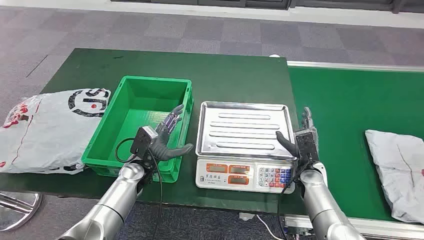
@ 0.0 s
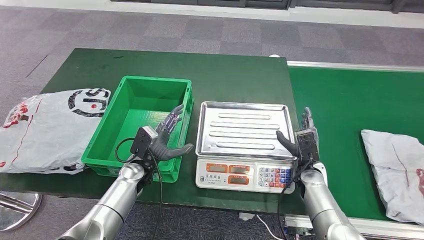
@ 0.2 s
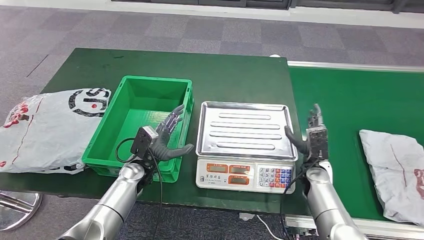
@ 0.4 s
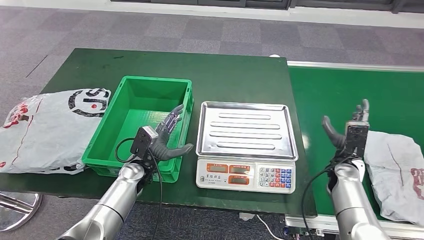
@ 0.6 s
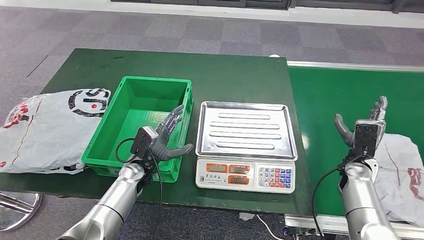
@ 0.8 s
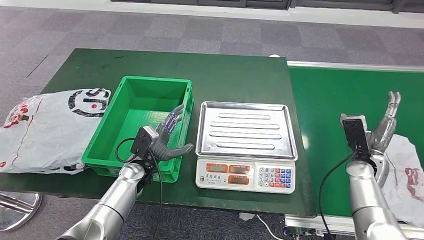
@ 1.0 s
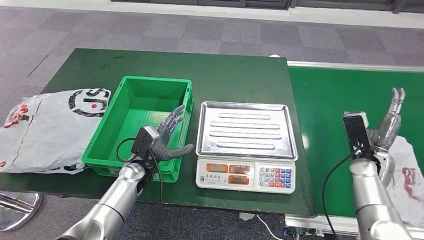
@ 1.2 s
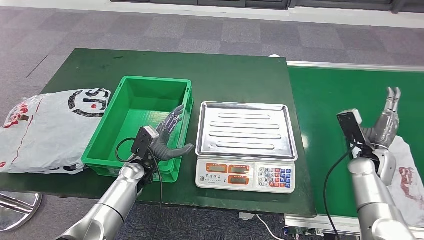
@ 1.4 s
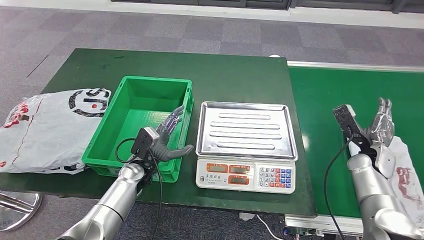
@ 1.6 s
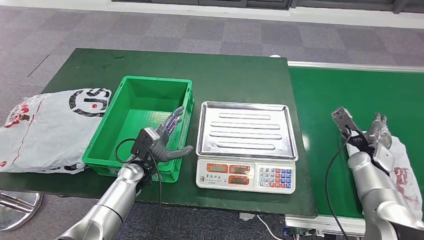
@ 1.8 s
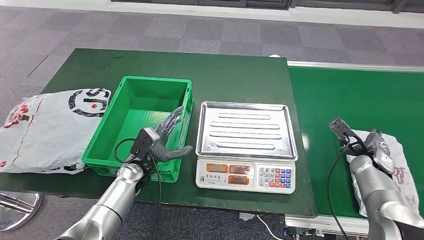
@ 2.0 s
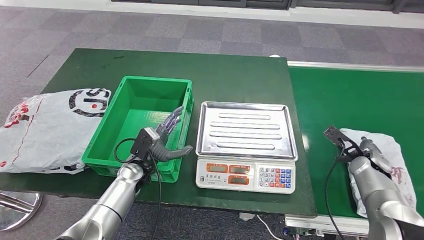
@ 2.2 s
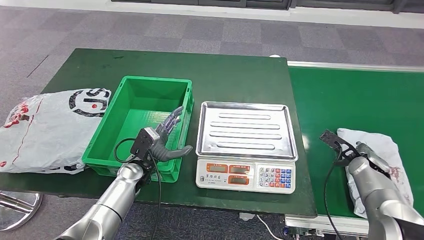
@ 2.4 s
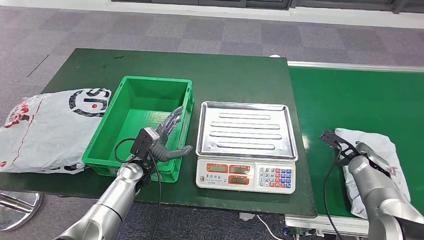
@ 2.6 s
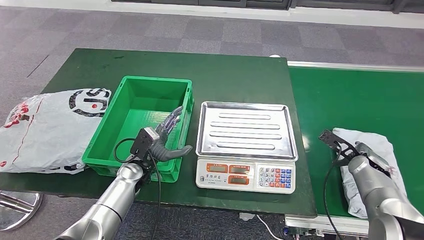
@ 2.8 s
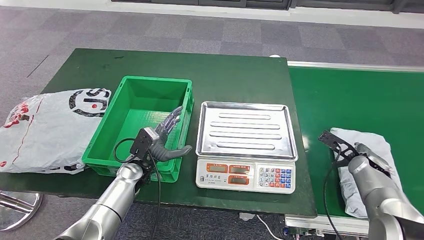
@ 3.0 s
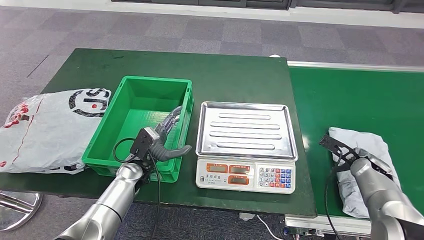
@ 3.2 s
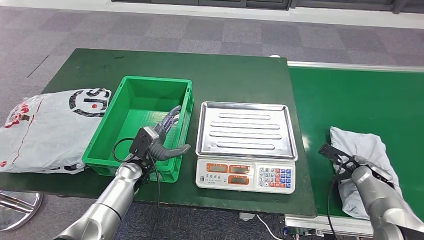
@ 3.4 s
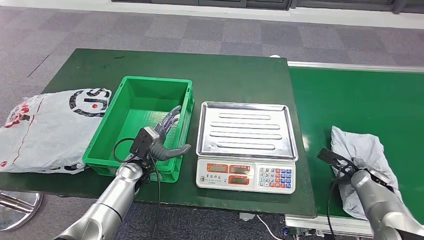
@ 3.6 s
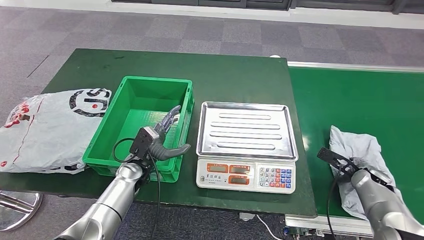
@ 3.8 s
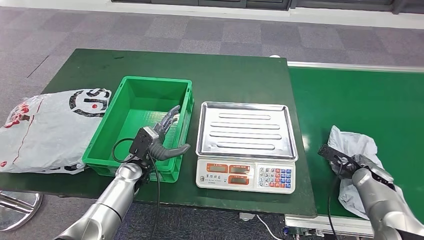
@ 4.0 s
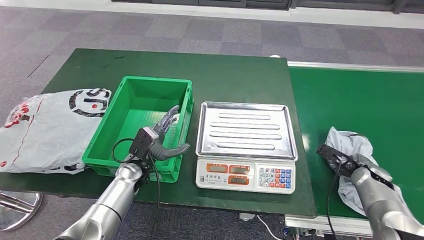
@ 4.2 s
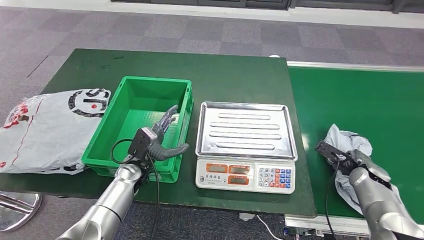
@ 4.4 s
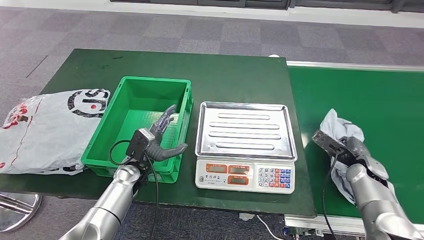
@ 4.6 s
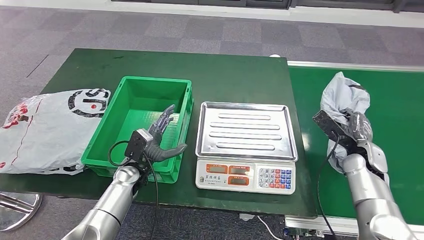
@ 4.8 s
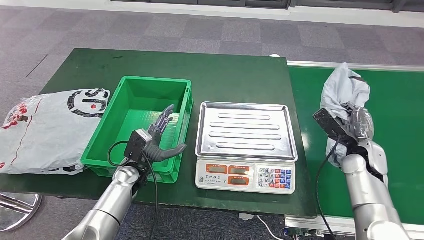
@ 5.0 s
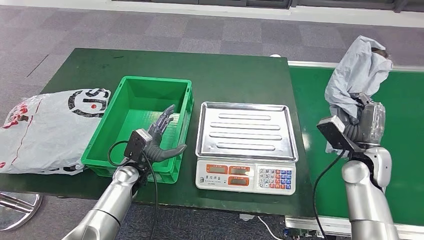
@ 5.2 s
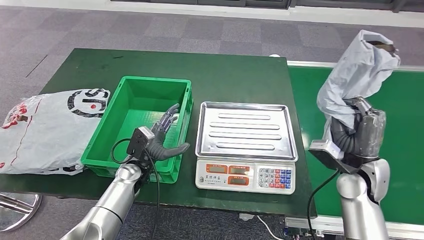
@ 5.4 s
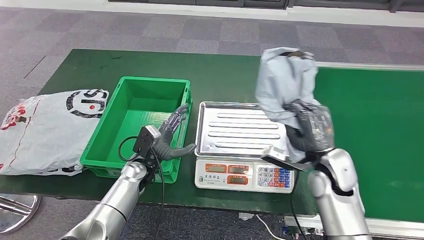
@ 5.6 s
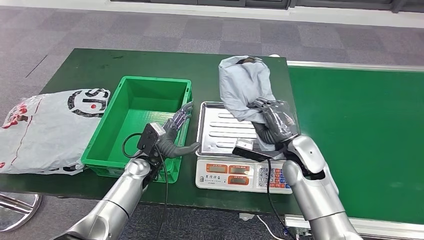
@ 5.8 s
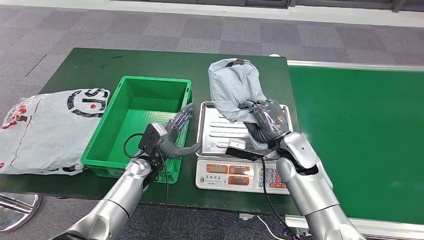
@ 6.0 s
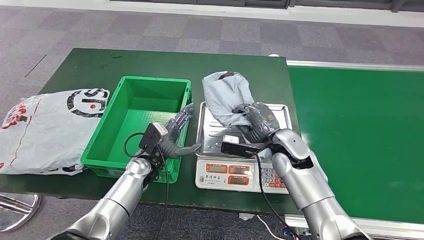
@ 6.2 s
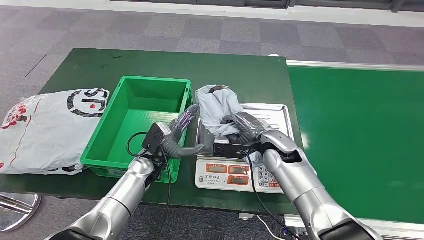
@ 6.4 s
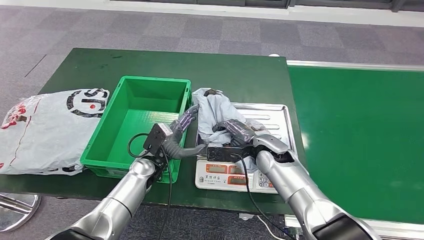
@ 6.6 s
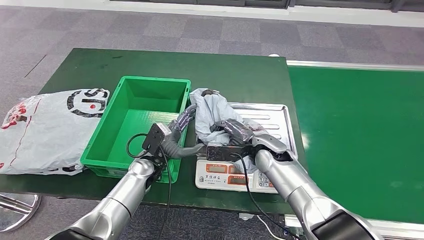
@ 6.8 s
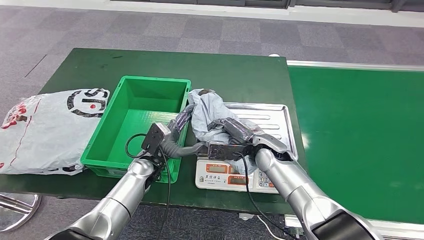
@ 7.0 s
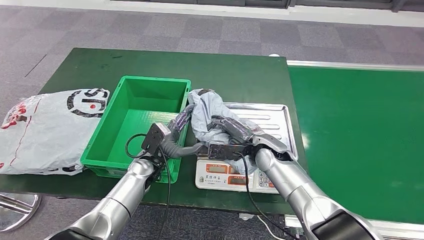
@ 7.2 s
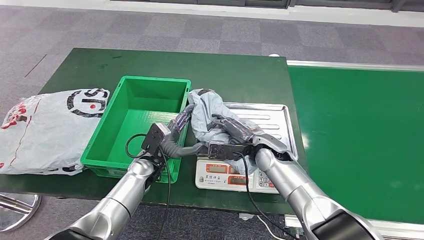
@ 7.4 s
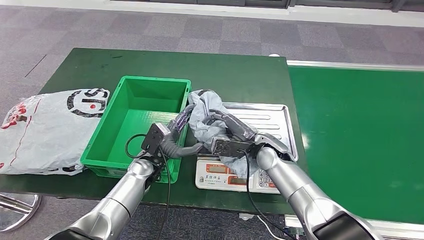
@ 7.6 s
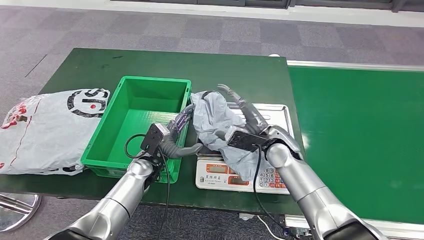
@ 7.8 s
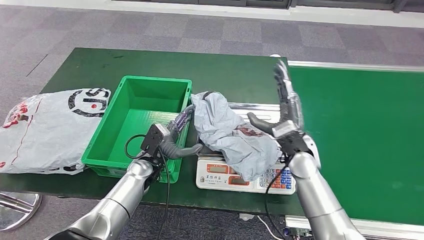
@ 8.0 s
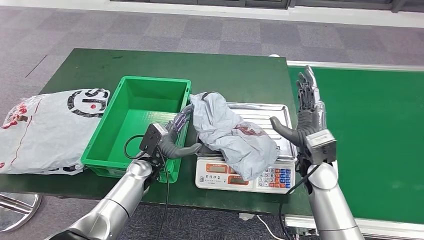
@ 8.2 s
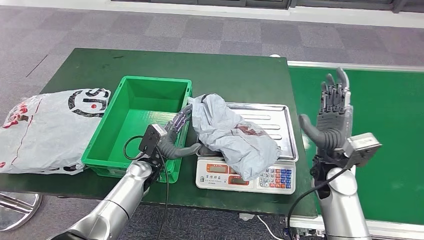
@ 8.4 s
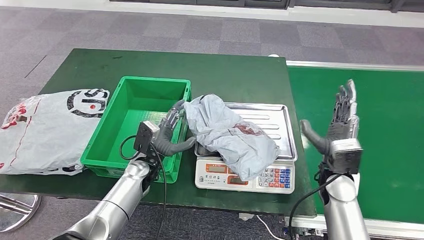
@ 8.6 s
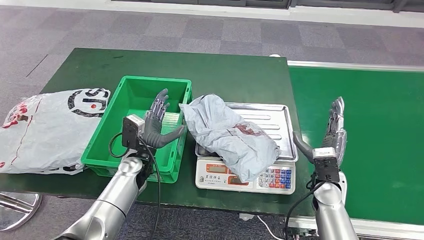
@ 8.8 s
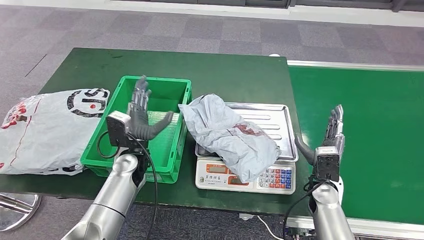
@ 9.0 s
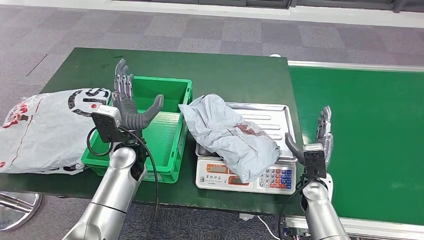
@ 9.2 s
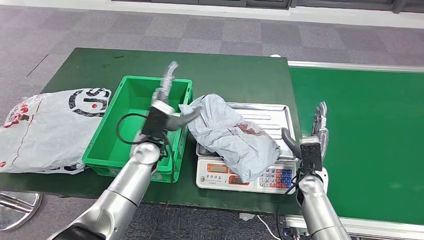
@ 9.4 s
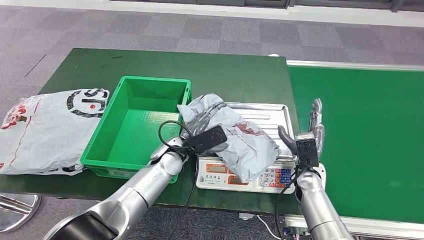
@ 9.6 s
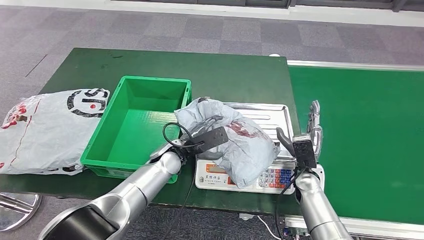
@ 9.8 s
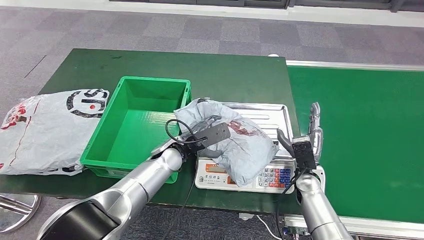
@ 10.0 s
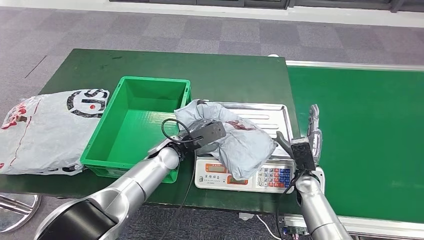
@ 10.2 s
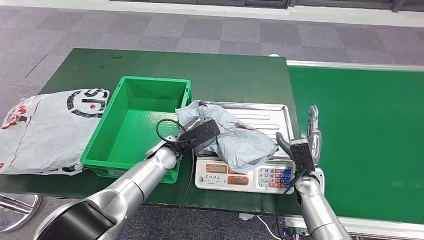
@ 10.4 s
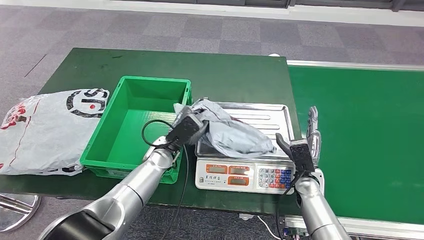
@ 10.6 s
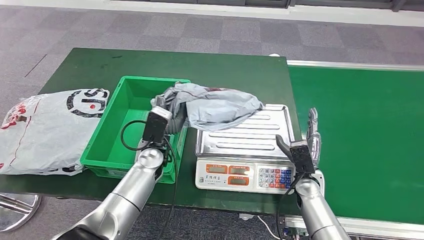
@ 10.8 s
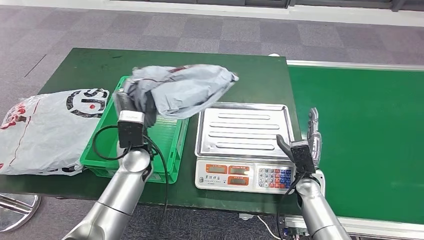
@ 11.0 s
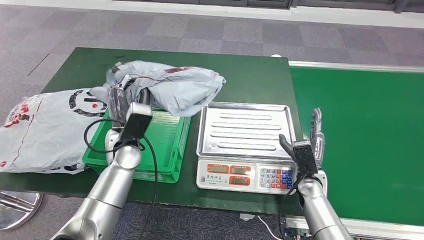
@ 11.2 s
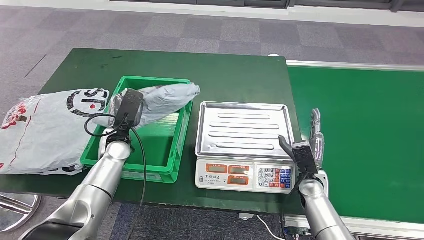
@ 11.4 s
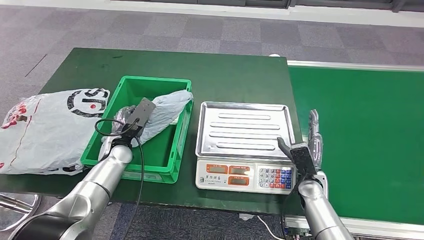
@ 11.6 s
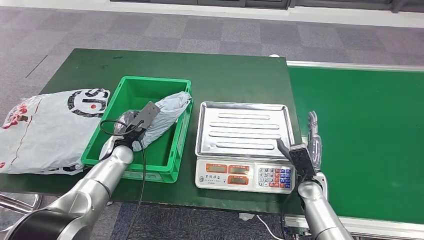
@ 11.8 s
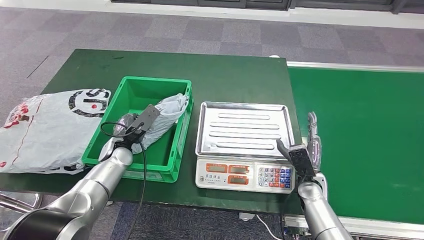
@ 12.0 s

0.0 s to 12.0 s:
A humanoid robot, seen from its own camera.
Step, 0.0 to 5.4 s: Take the parcel off the conveyor belt.
Step, 5.6 to 8.8 s: Place the parcel onto the inbound machine.
Step, 9.0 to 10.8 s: Pick up the parcel from the inbound machine.
3.0 to 4.4 s: The hands make only small movements.
6.0 to 7.6 s: The right hand goes about 5 cm to the left.
7.6 to 9.0 s: The right hand moves to the right and backward, roughly 15 cm.
9.0 to 10.4 s: The left hand is displaced to the right by some 10 cm.

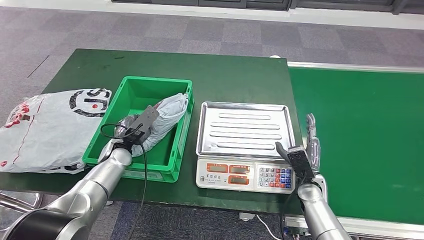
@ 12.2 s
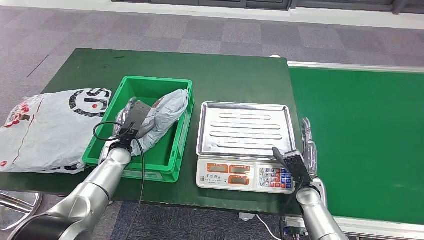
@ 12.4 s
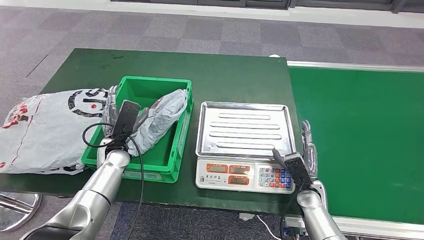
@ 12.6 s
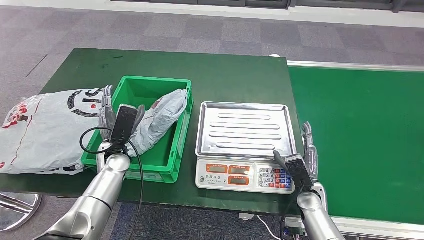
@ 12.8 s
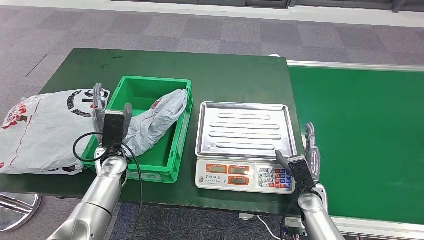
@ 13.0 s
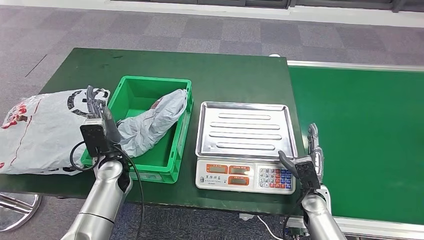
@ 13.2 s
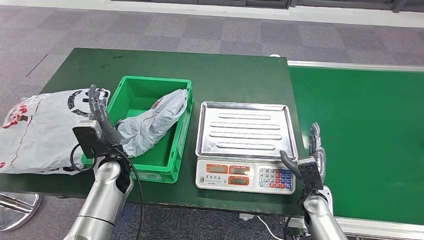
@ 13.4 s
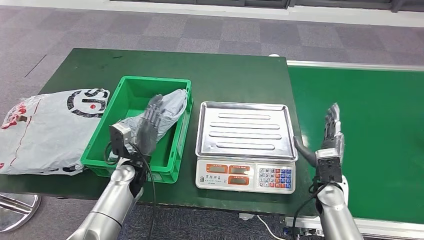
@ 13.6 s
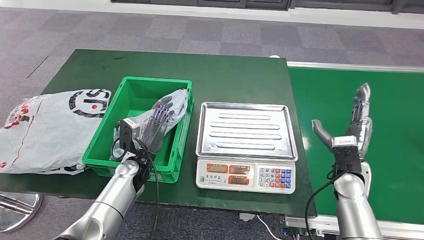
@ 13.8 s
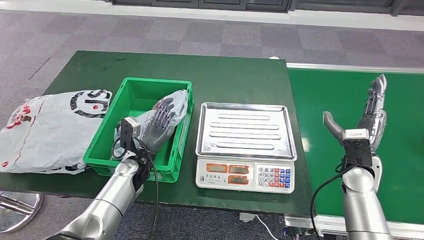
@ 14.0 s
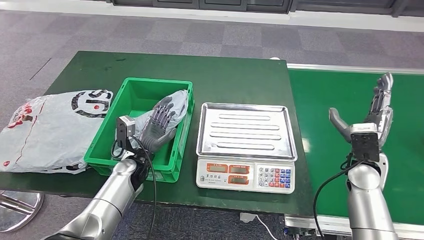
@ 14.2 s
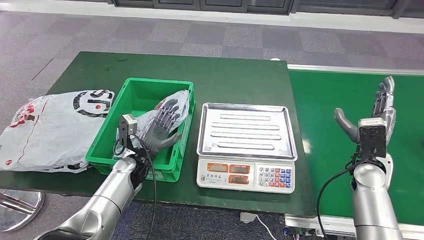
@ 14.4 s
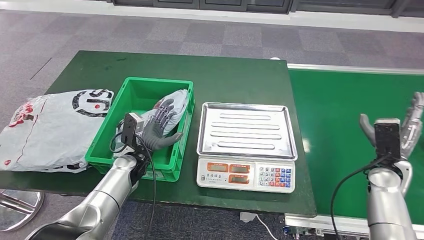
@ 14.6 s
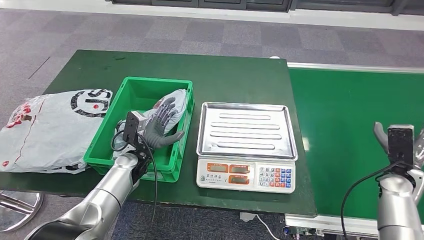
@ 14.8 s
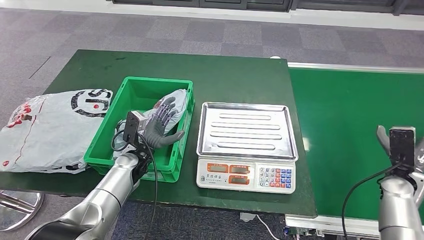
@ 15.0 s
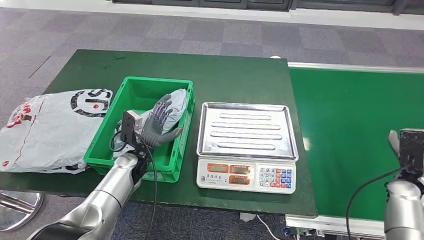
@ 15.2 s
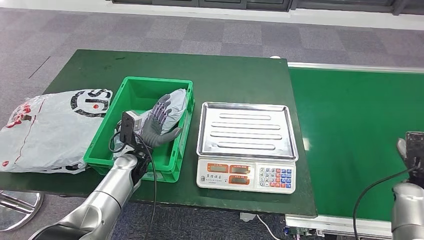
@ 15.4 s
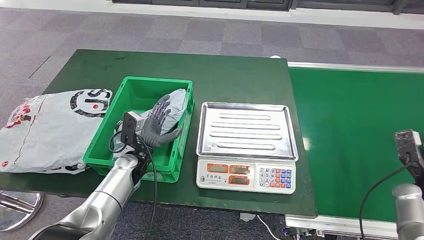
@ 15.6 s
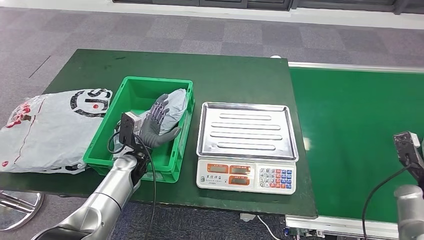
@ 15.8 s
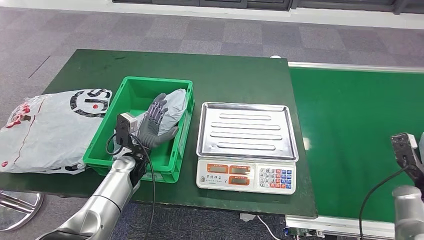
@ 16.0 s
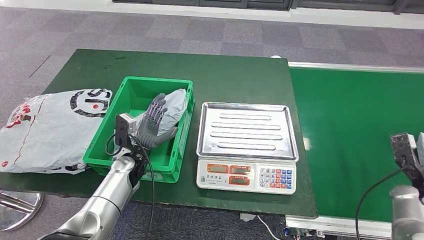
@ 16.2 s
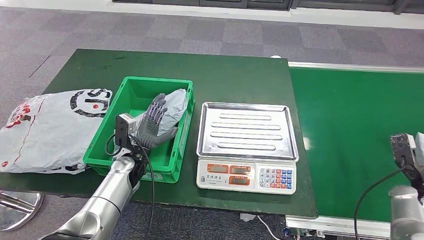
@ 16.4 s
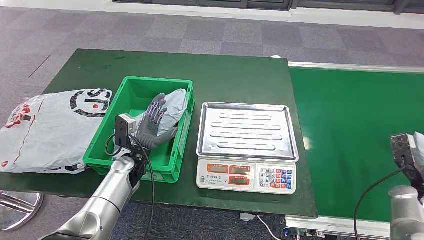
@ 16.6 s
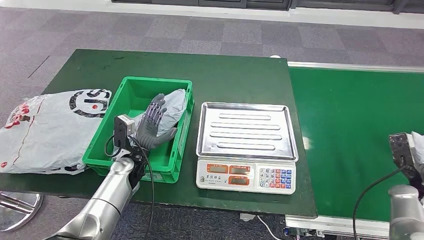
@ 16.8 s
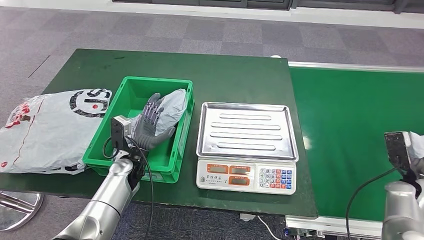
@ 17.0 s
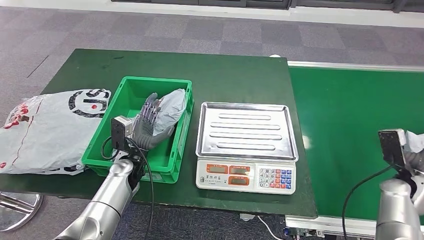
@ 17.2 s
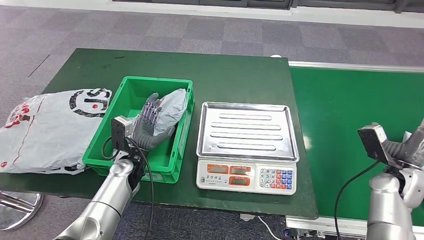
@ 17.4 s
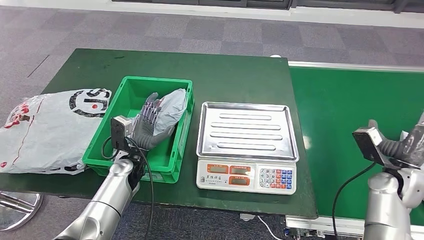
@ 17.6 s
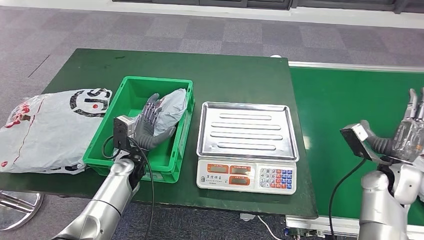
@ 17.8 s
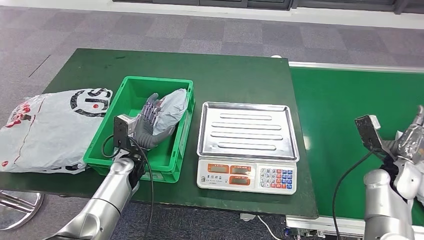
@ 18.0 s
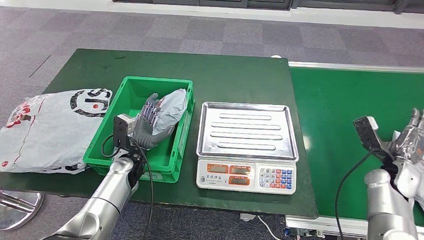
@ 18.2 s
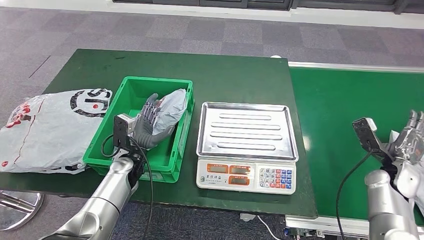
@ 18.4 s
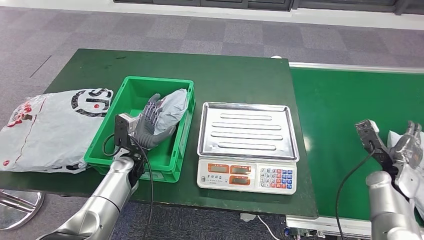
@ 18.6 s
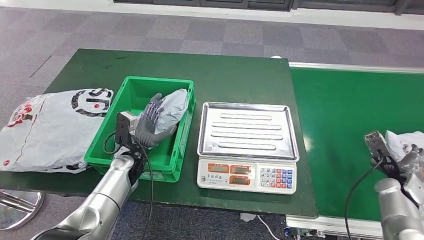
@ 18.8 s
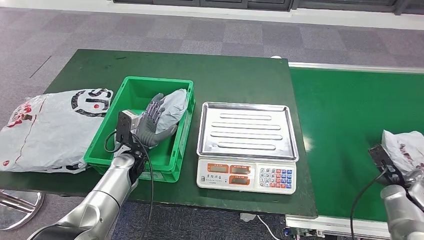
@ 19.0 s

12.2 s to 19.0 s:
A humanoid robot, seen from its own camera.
15.0 to 16.2 s: The right hand goes about 5 cm to the right.
16.2 to 17.6 s: The right hand is displaced to the left by some 10 cm.
17.6 to 19.0 s: The right hand goes roughly 10 cm to the right and downward.
